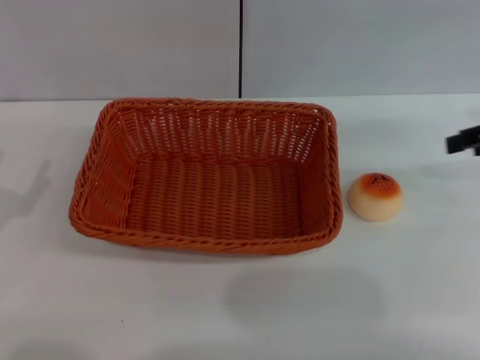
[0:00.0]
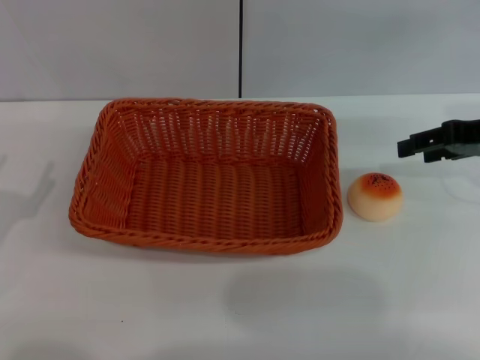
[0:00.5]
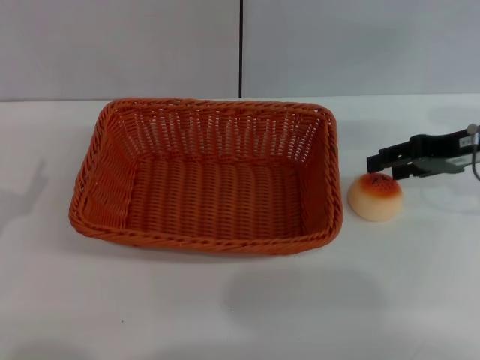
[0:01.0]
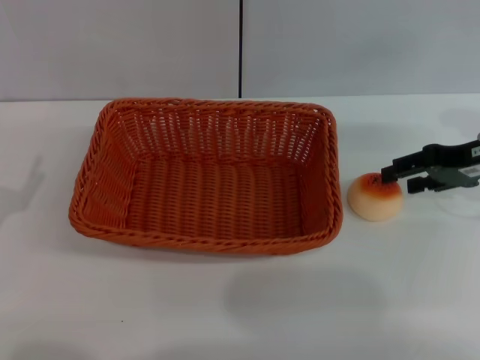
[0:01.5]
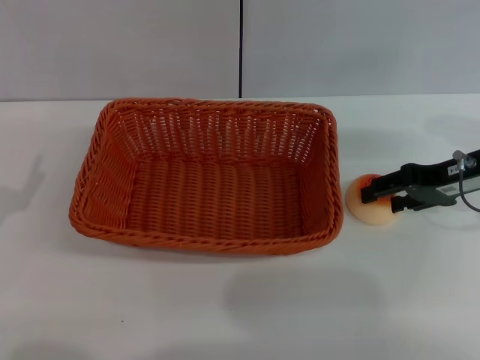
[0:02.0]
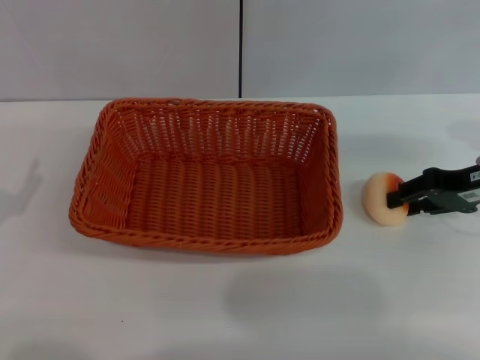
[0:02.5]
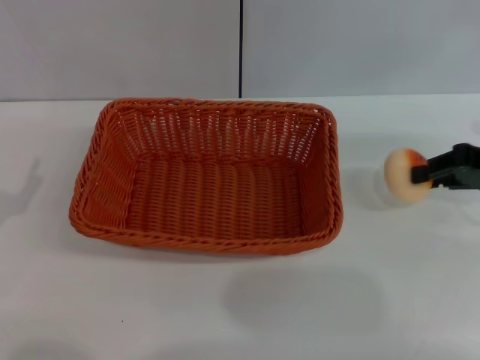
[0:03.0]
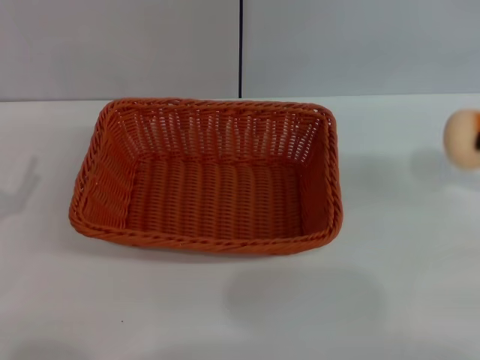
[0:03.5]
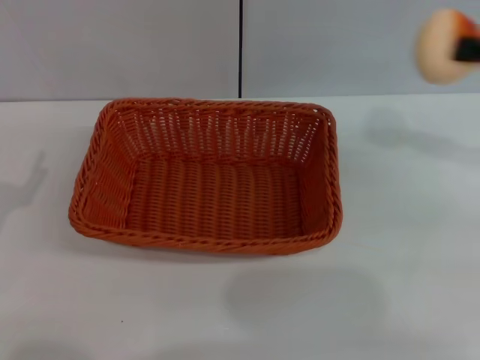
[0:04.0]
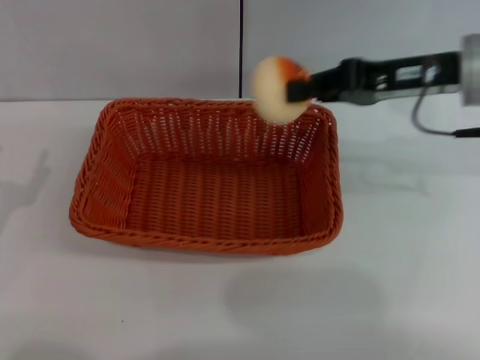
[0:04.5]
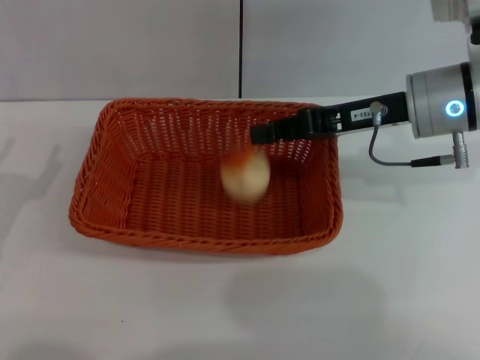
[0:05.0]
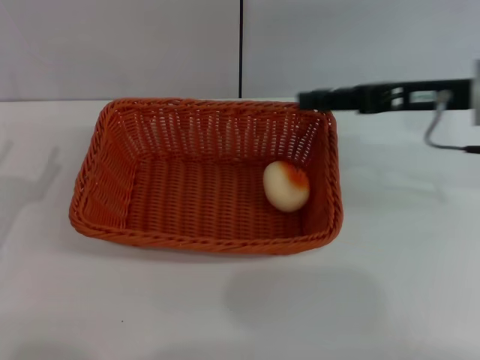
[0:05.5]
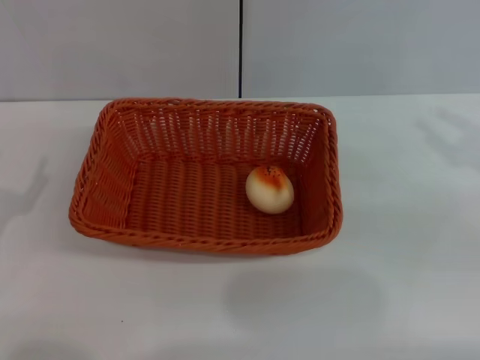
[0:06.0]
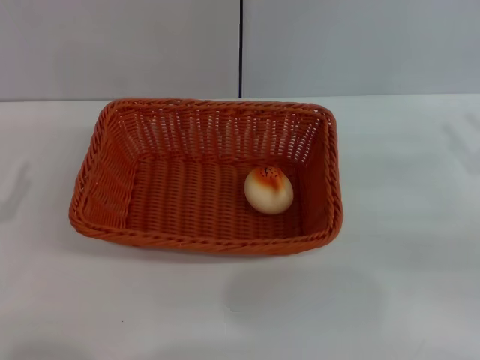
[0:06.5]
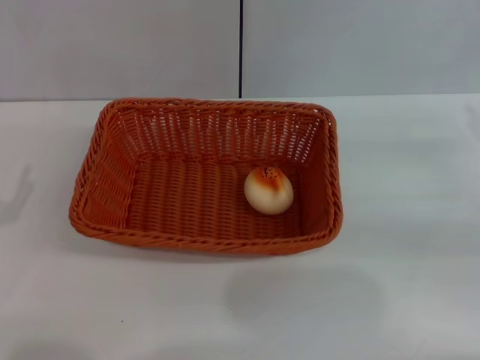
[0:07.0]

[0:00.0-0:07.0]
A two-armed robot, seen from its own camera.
Step, 0:00.0 to 0:03.0: Pick up the egg yolk pastry with the right gripper.
Step, 0:03.5 to 0:05.0: Place the egg yolk pastry into the basket with the right gripper.
0:00.0 to 0:02.0: The right gripper is displaced downward and to the left by approximately 10 cm.
0:02.0 to 0:03.5: The right gripper is displaced to the right, backward and upward by some 15 cm, and closes.
0:03.5 to 0:05.0: The right gripper moves to the left and forward, approximately 20 cm.
0:05.0 to 0:07.0: The right gripper goes roughly 20 cm to the right and backward, and opens up.
